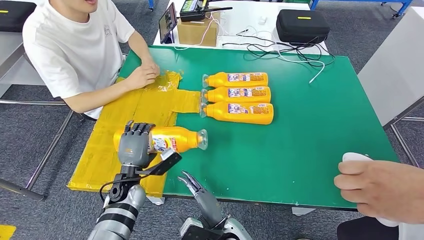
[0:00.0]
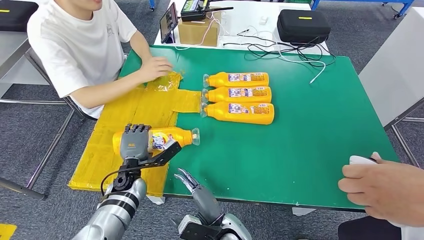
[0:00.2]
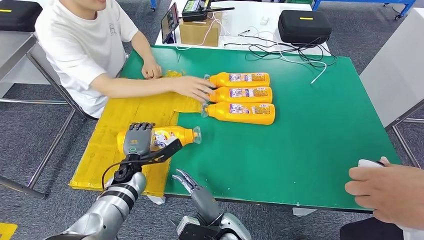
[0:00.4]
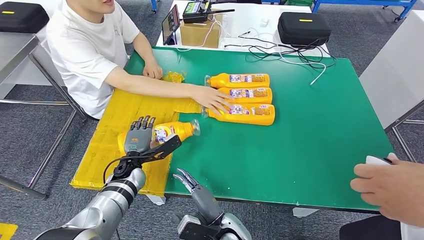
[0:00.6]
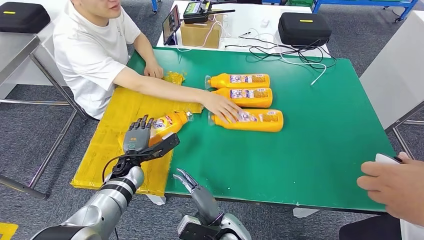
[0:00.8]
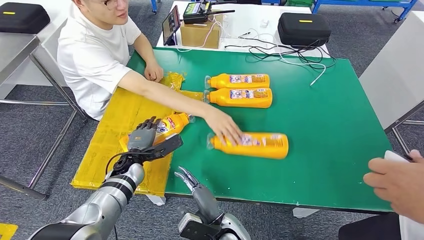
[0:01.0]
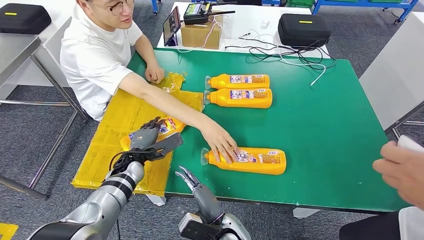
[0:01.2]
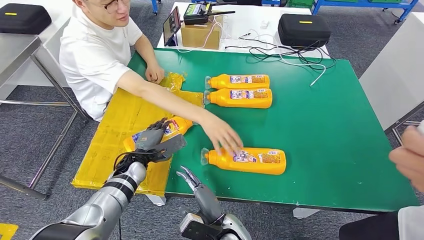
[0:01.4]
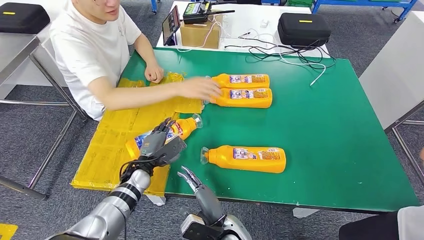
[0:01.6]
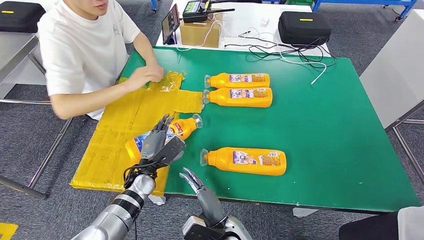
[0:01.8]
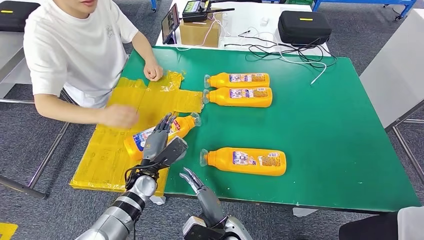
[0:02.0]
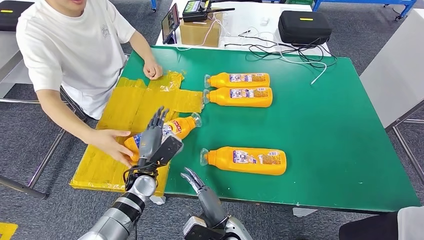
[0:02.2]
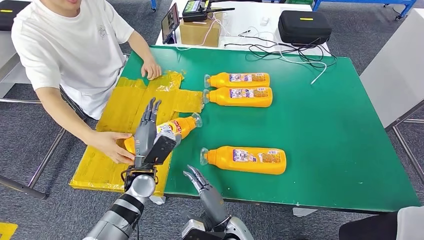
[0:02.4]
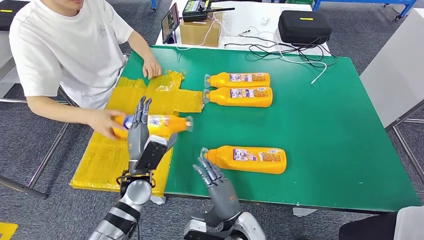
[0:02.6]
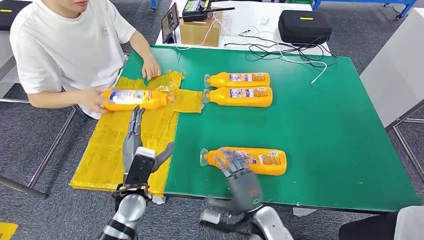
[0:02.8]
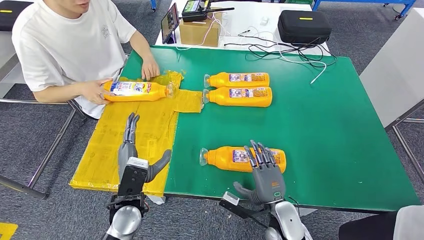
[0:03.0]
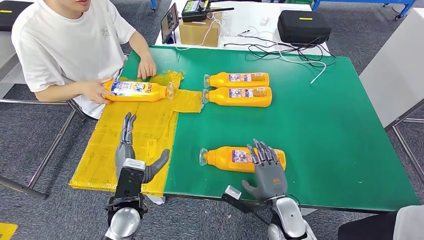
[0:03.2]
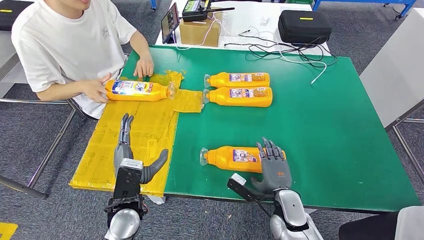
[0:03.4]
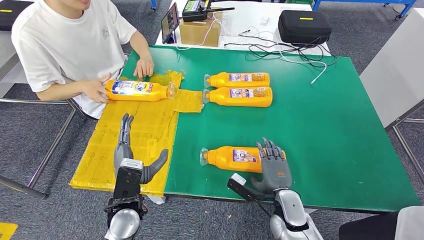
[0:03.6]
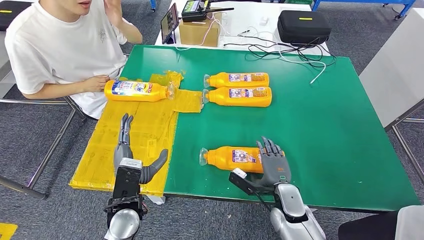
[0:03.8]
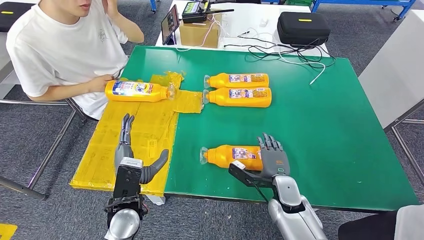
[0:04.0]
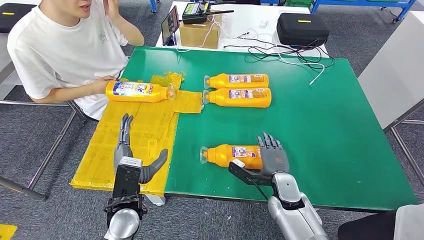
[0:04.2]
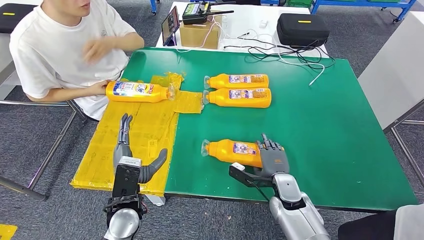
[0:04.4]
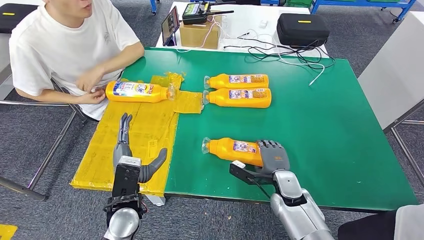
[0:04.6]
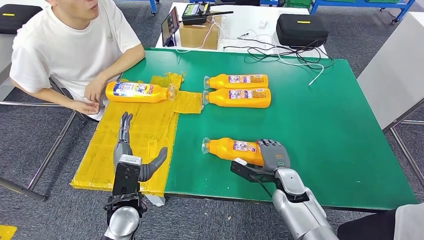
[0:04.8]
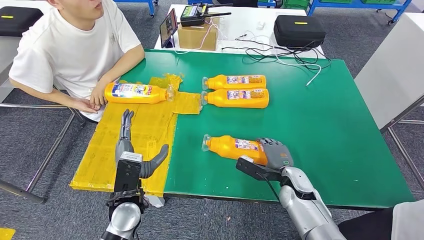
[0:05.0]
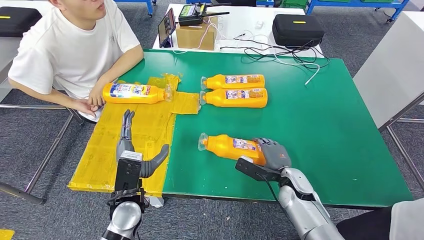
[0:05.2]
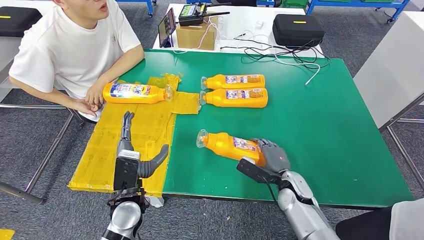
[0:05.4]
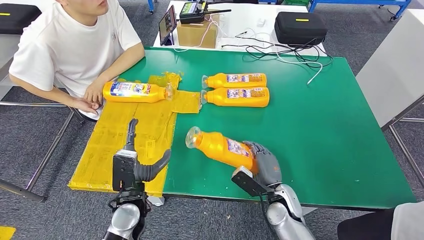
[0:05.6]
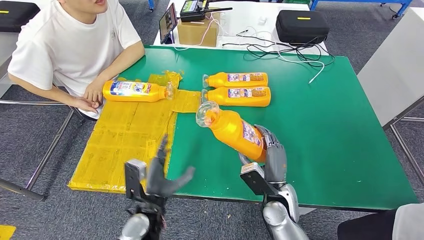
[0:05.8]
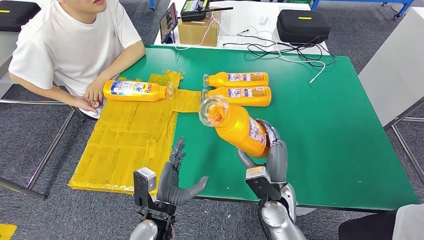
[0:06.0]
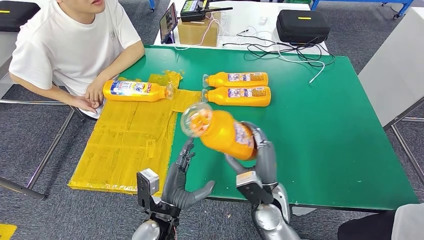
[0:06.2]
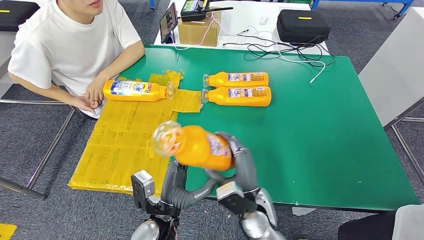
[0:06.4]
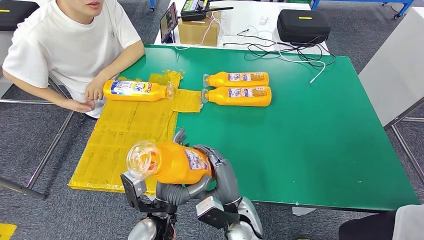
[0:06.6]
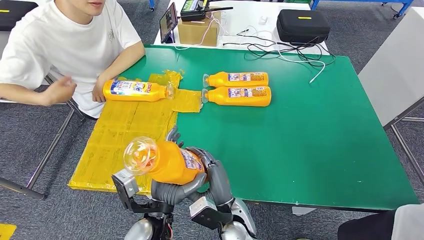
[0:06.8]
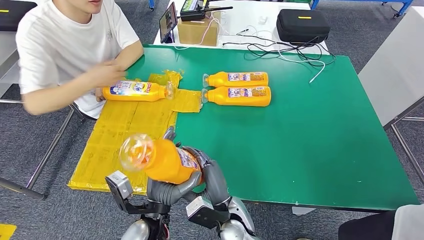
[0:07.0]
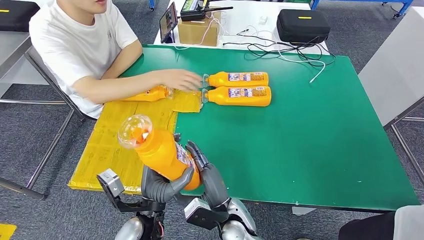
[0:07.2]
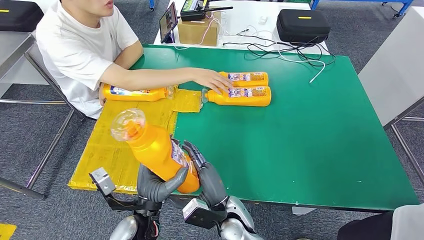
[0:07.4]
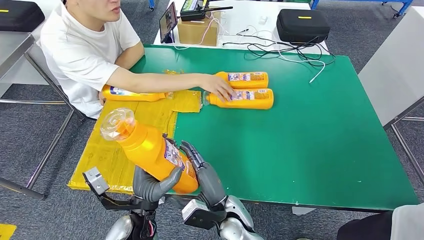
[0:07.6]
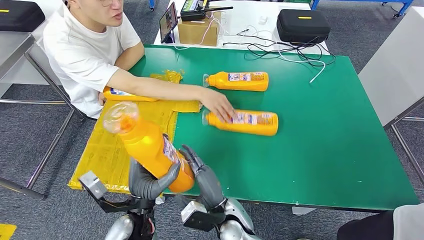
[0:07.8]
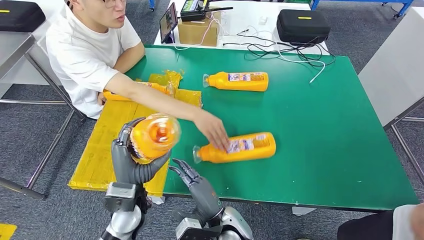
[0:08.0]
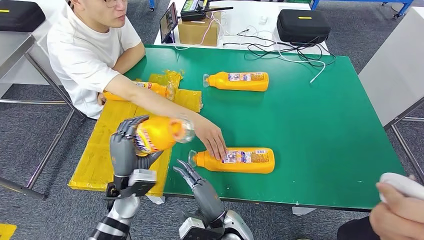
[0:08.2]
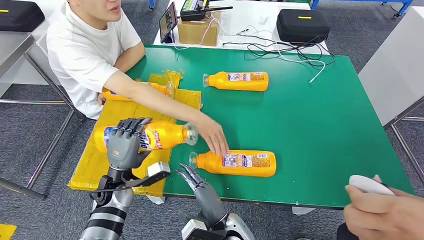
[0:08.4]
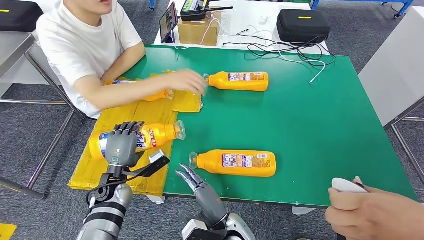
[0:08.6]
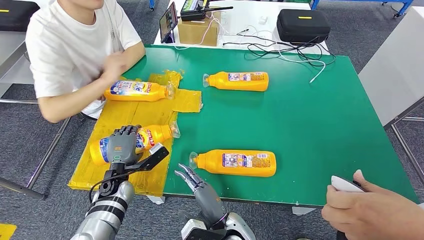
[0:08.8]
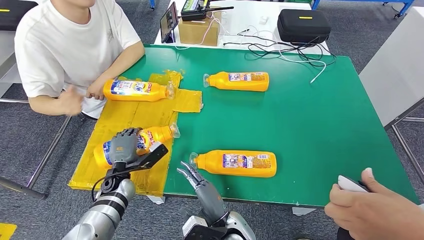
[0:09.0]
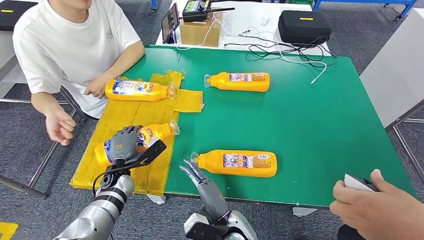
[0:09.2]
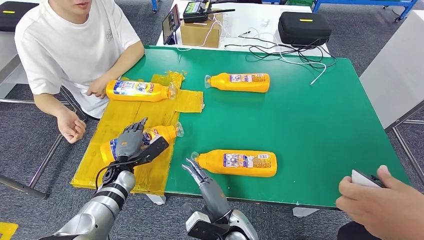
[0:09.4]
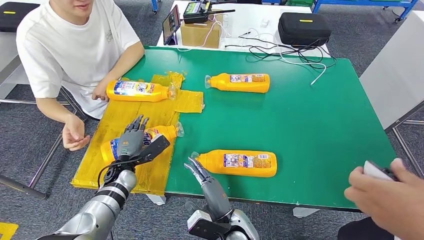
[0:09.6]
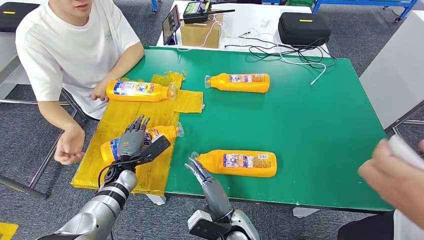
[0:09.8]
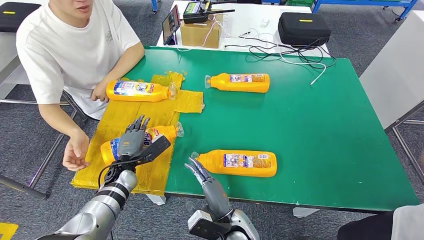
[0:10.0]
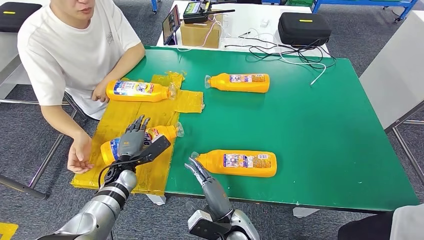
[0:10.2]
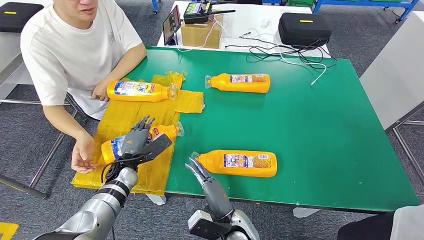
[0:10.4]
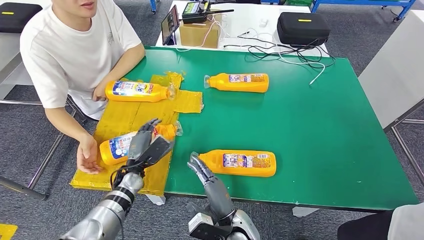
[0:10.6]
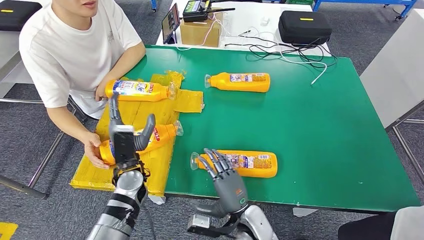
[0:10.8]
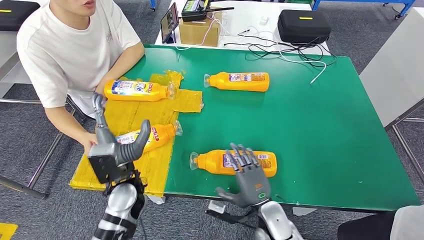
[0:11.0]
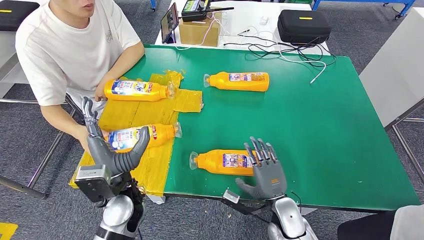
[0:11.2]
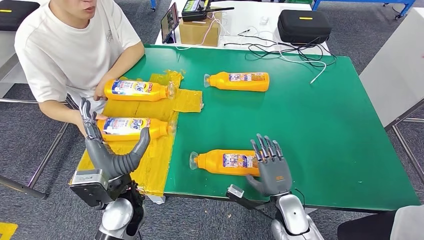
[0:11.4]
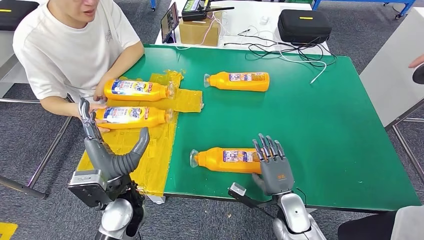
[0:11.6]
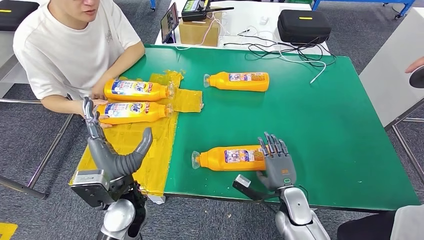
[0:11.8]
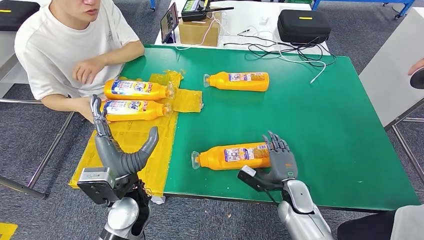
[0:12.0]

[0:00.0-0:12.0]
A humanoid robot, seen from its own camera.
Step, 0:04.6 to 0:06.8: Pick up the bottle from the table.
Step, 0:07.0 to 0:11.0: Flip the bottle to face forward.
0:03.0 to 0:04.4: The right hand shifts roughly 10 cm forward.

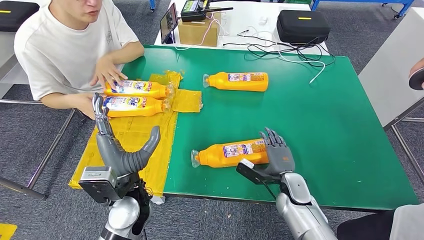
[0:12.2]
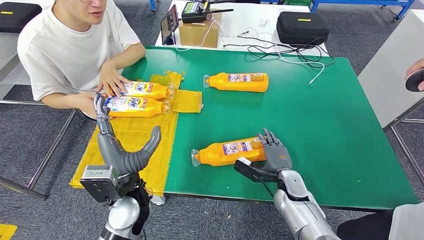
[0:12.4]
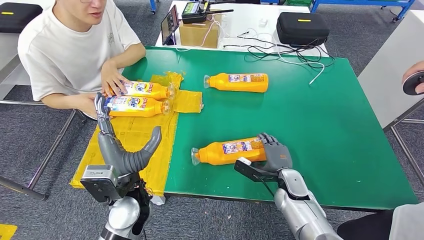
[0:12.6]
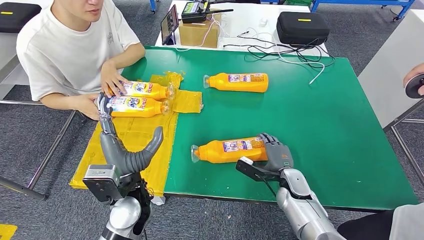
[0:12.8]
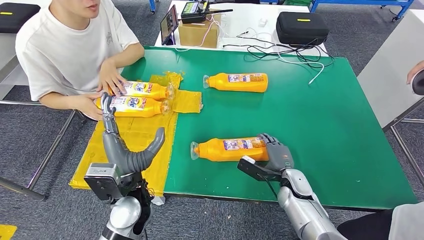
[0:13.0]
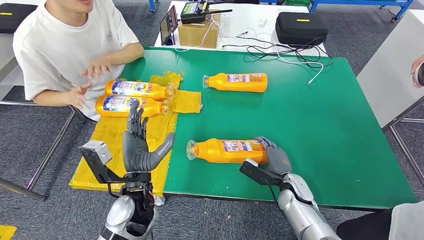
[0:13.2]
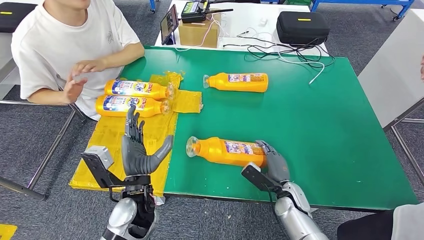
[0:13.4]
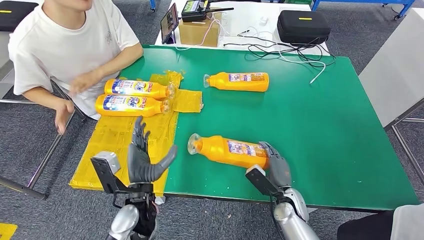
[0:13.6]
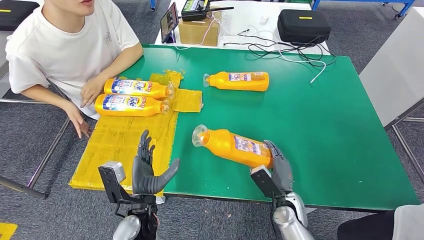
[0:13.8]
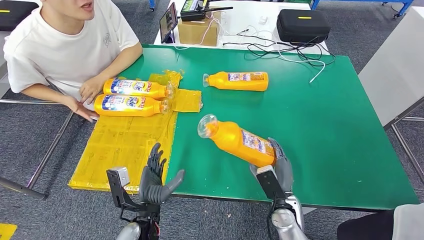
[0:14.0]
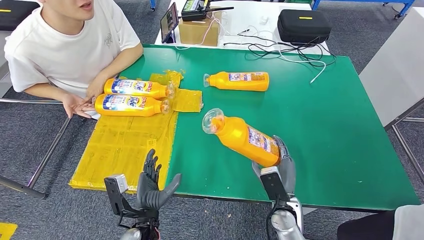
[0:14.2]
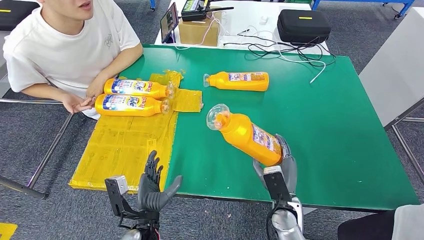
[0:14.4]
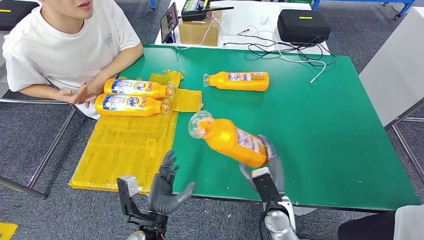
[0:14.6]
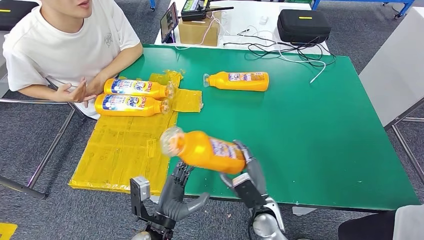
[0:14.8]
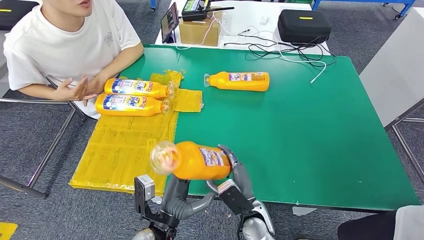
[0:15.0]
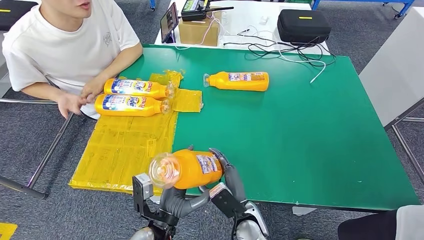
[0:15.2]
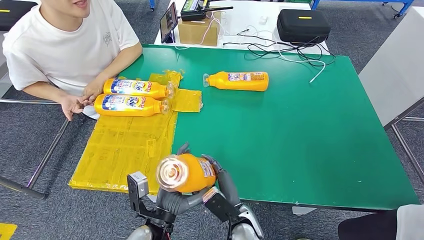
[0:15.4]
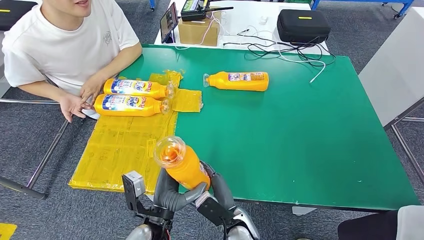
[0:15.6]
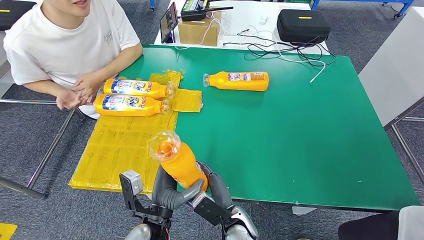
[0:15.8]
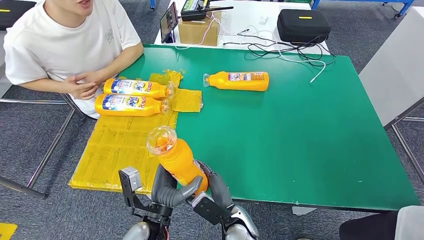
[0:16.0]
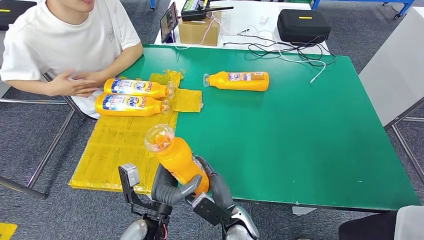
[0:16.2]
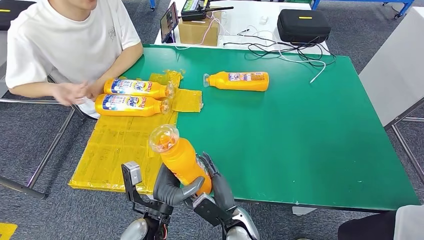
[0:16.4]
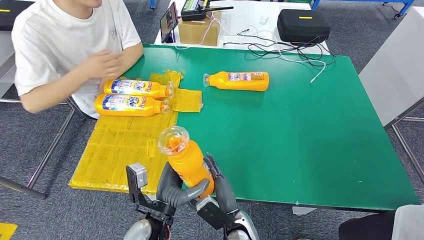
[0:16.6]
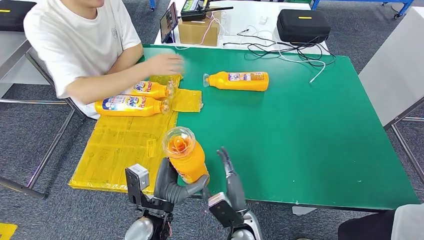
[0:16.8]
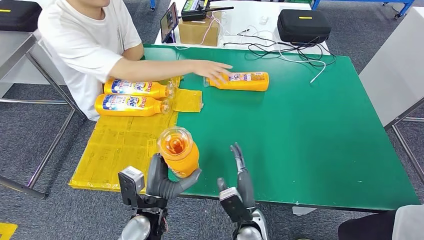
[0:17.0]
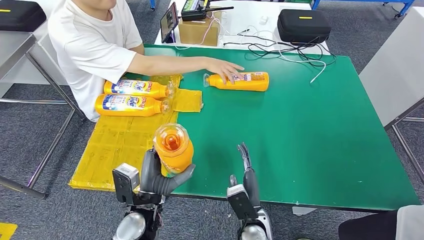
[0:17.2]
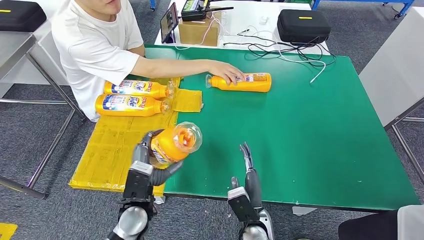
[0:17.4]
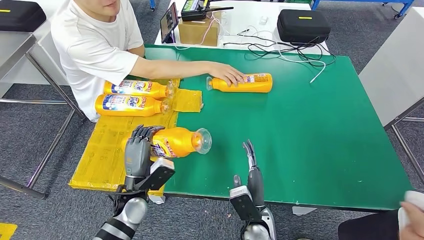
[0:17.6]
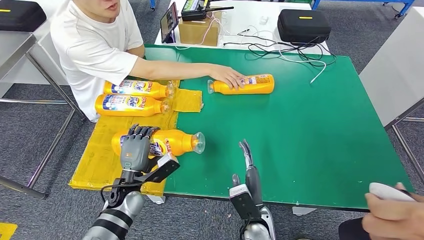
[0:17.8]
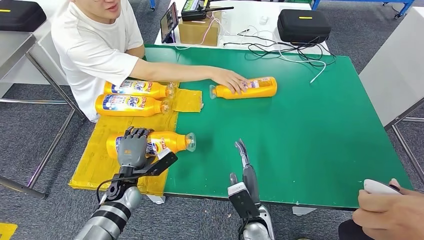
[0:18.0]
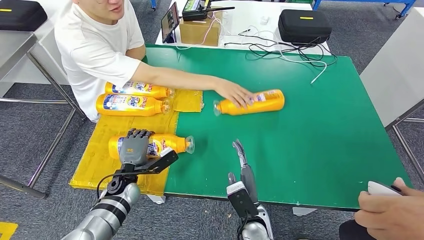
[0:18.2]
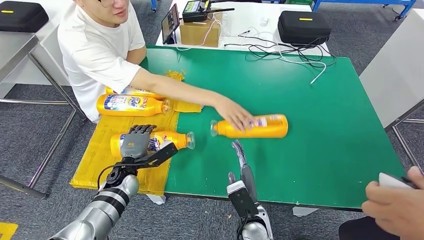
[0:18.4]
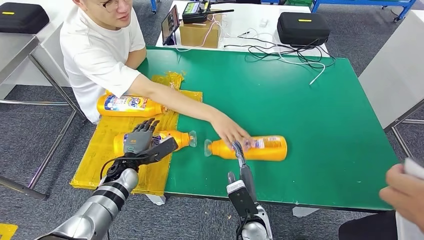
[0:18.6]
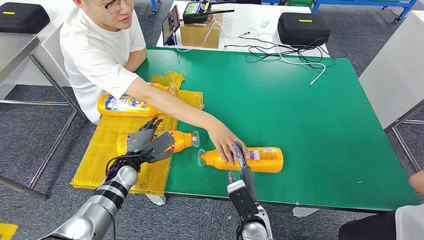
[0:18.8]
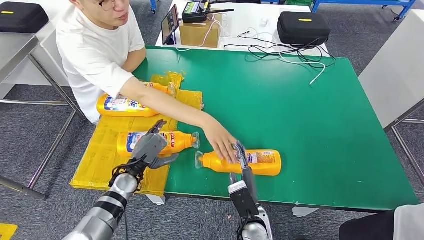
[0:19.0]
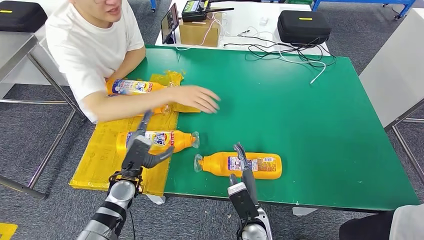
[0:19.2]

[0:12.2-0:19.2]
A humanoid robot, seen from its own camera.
Step, 0:12.6 to 0:14.8: Pick up the bottle from the table.
Step, 0:15.0 to 0:19.2: Flip the bottle to face forward.
0:13.6 to 0:15.0: The left hand moves backward, roughly 5 cm, while the right hand travels to the left by roughly 10 cm.
0:15.0 to 0:16.4: The right hand moves some 5 cm.
